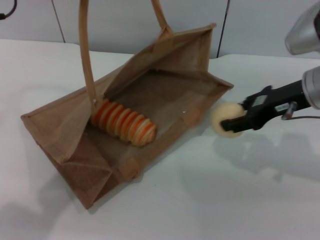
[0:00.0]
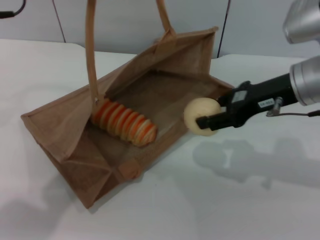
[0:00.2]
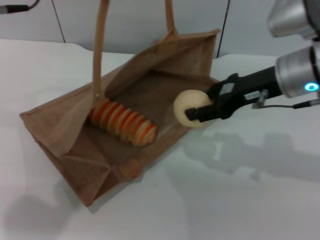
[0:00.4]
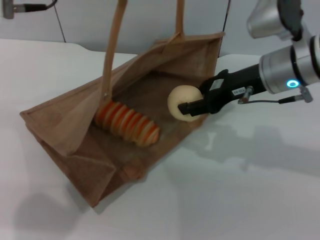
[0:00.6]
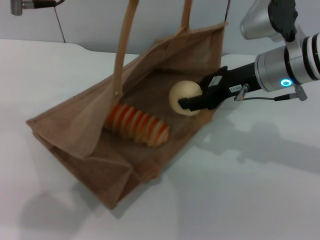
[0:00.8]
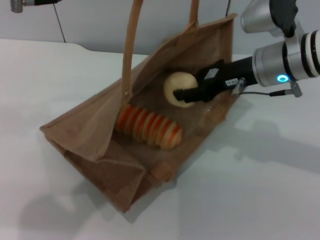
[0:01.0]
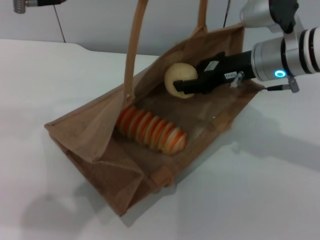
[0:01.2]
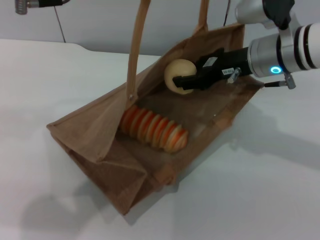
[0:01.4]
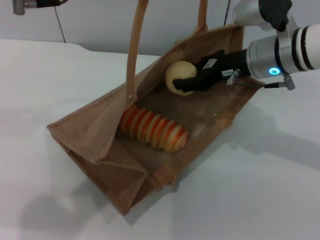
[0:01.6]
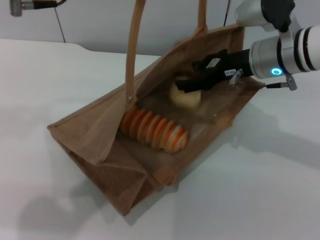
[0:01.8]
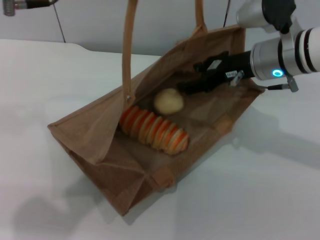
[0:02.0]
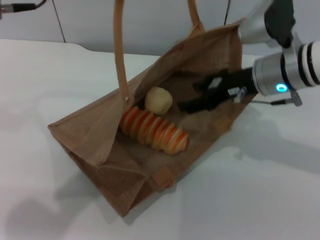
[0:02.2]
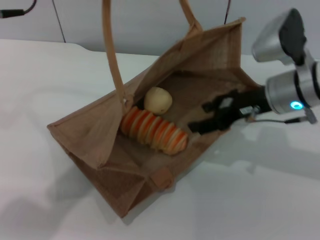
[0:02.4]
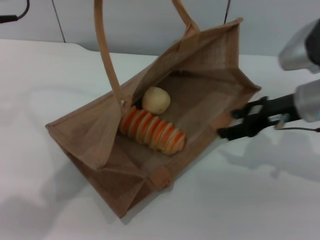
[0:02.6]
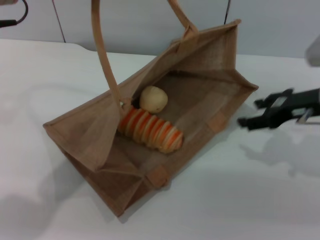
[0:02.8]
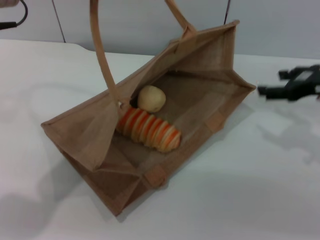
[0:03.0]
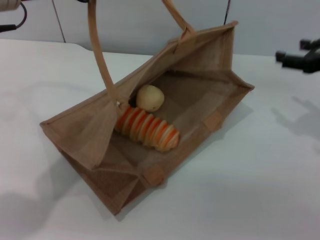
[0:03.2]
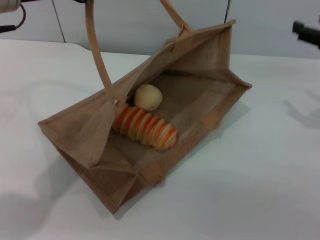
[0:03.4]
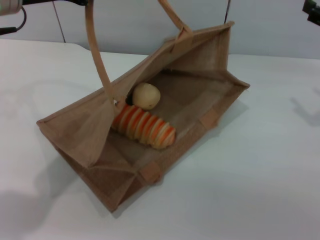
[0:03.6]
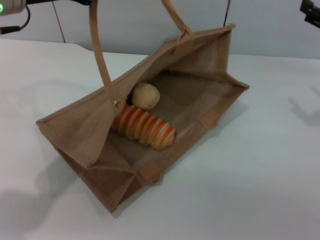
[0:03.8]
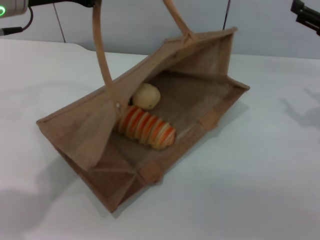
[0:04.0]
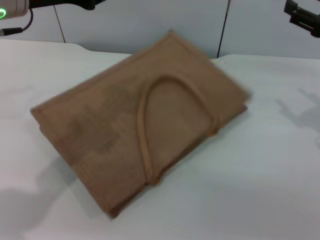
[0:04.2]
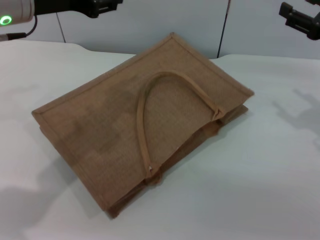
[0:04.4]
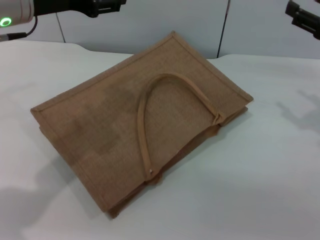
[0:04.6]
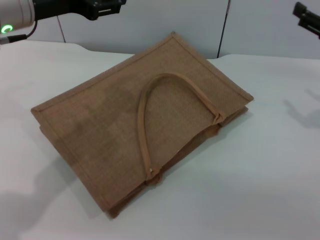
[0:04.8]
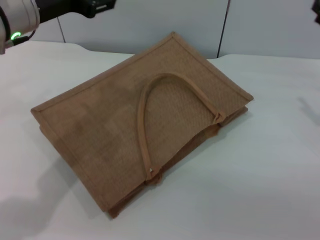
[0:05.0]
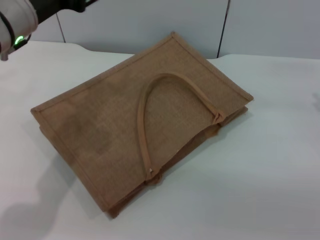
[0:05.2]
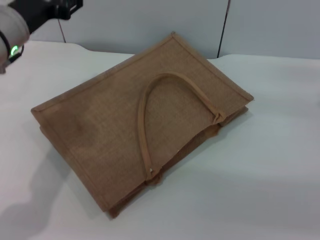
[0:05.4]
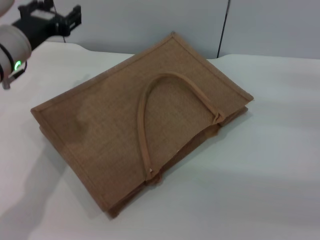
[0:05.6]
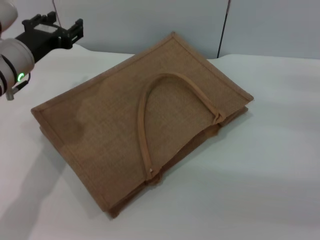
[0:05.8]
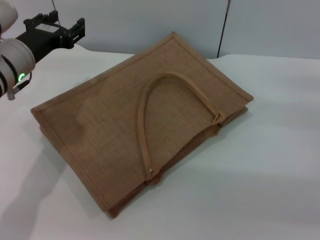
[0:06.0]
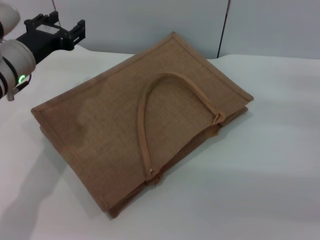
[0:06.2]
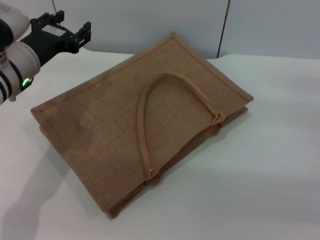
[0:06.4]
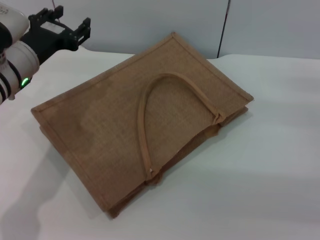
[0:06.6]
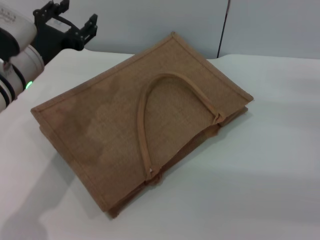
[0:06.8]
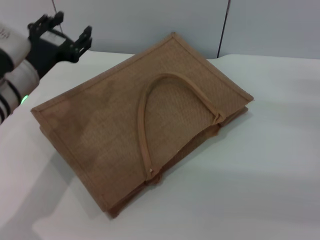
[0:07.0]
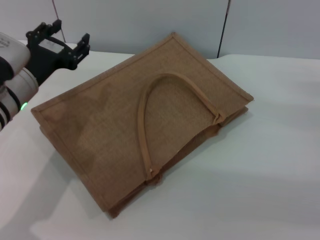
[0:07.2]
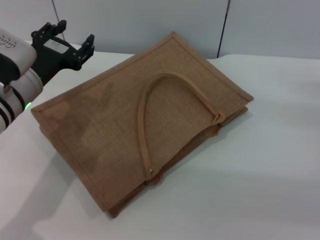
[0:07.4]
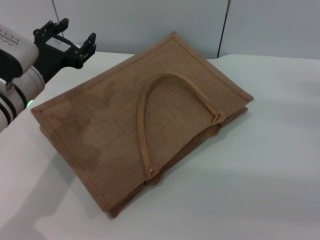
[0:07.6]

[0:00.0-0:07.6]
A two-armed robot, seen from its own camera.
Task of the whole recording: pick up the bread and egg yolk pastry from the table and place it in the brown handbag.
Step, 0:00.0 to 0:02.4: Place the egg yolk pastry into the woven bag with the right gripper.
Step, 0:02.8 to 0:04.8: Lower the woven bag with the left gripper to close it.
0:00.0 to 0:01.6: The left gripper goes roughly 5 cm to the right. Meanwhile the right gripper moves to the left, roughly 5 cm.
0:01.6 to 0:03.0: The right gripper travels to the right by roughly 15 cm, and opens up. The left gripper moves to the left, approximately 5 cm.
0:03.0 to 0:04.6: The left gripper opens.
0:04.6 to 0:06.0: The two grippers go roughly 10 cm downward.
0:06.0 to 0:07.6: The grippers make only small movements.
